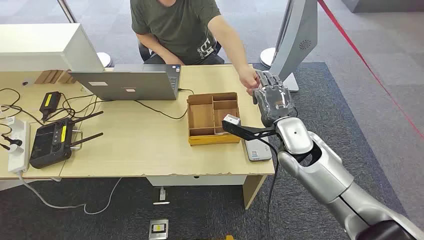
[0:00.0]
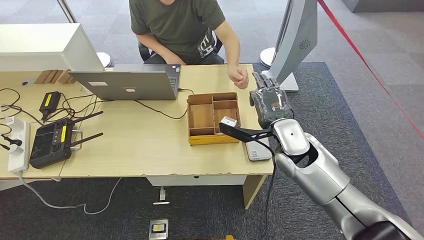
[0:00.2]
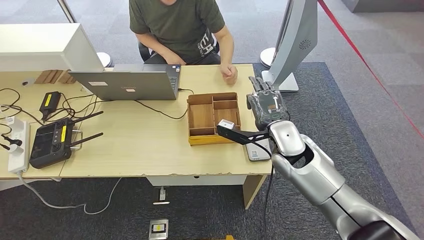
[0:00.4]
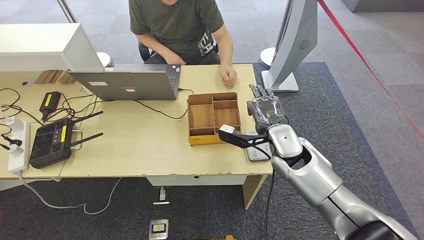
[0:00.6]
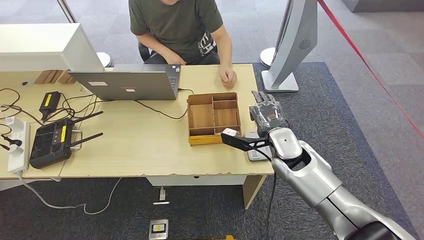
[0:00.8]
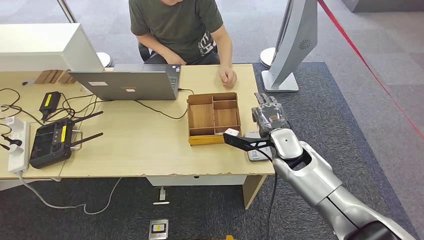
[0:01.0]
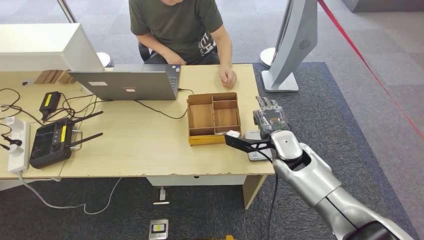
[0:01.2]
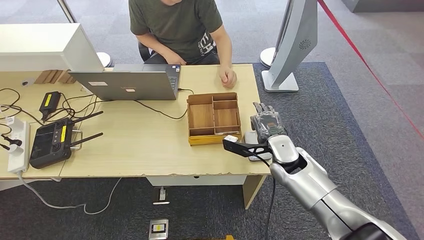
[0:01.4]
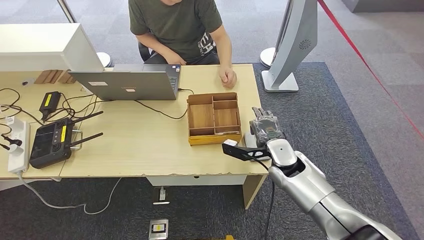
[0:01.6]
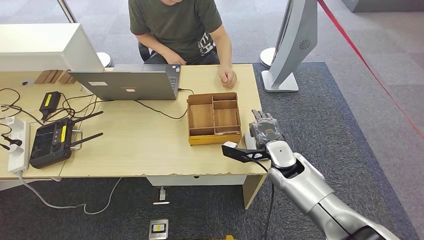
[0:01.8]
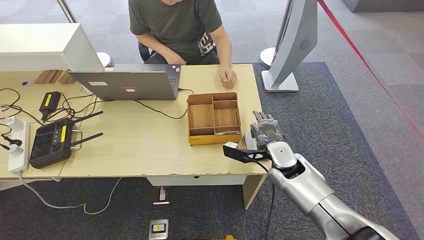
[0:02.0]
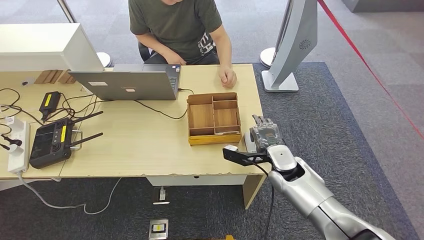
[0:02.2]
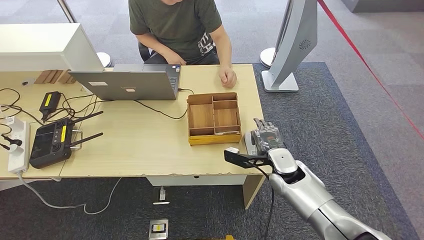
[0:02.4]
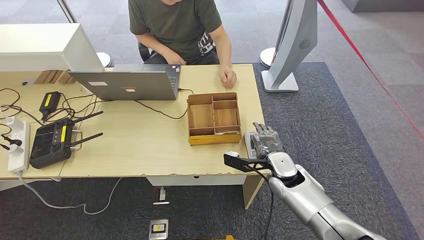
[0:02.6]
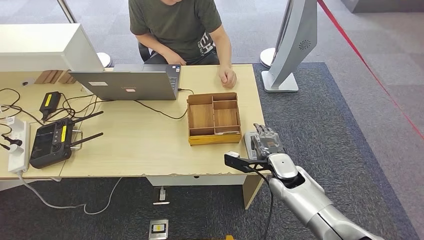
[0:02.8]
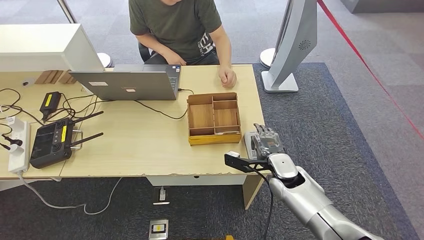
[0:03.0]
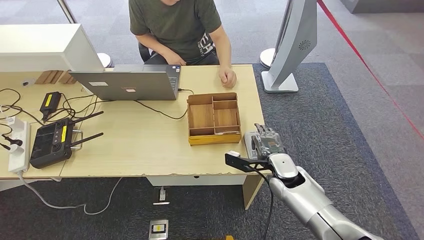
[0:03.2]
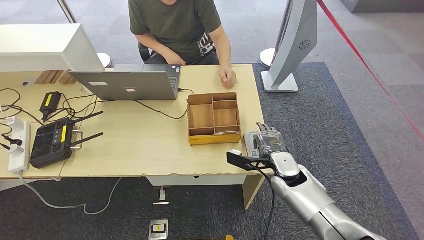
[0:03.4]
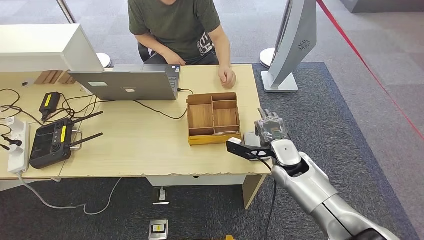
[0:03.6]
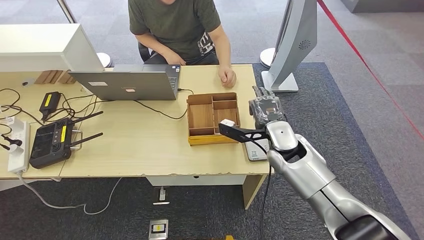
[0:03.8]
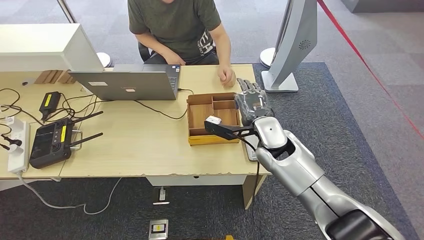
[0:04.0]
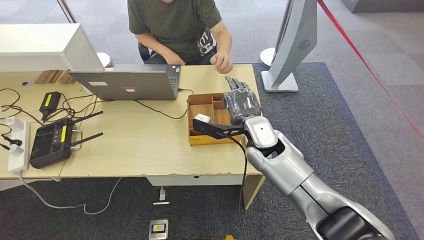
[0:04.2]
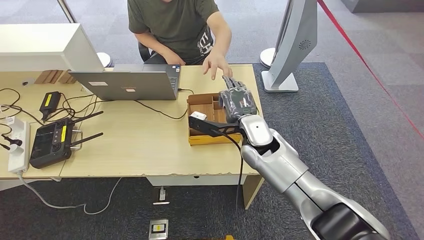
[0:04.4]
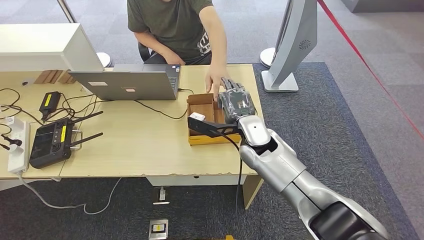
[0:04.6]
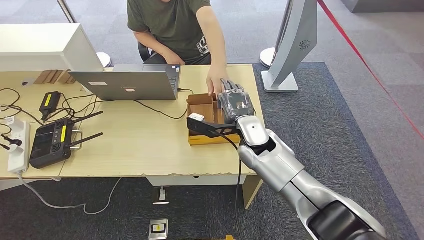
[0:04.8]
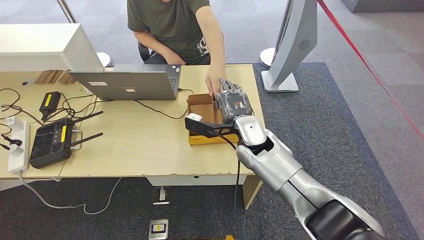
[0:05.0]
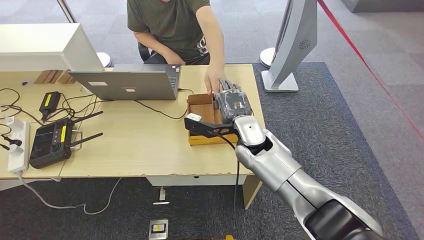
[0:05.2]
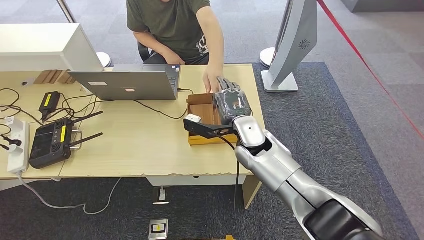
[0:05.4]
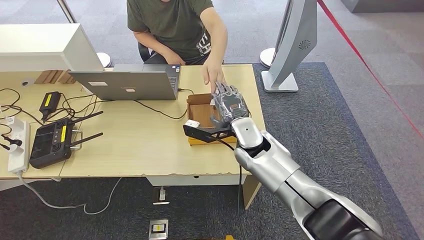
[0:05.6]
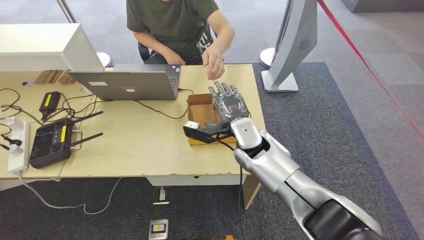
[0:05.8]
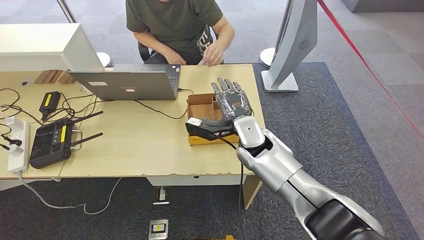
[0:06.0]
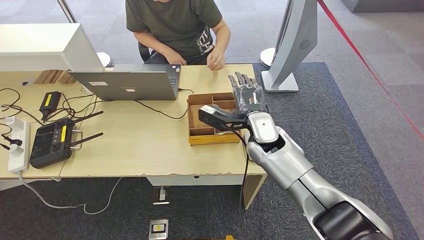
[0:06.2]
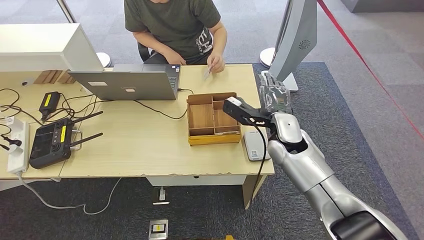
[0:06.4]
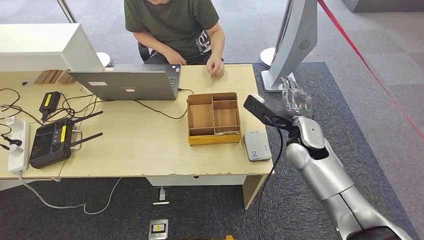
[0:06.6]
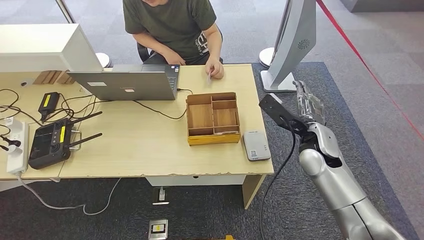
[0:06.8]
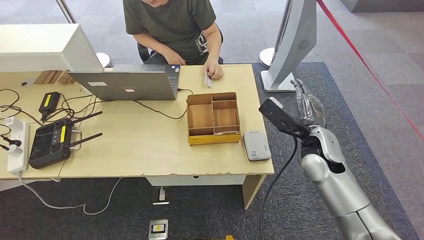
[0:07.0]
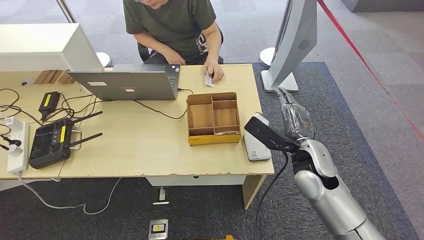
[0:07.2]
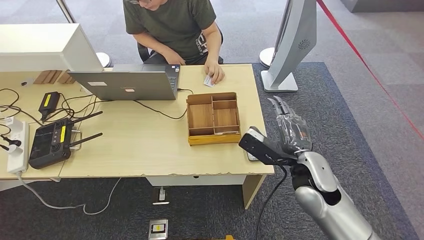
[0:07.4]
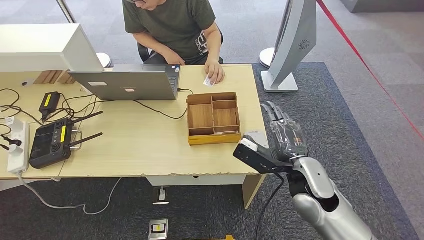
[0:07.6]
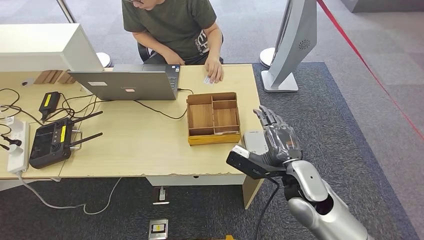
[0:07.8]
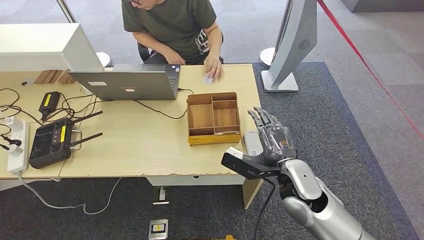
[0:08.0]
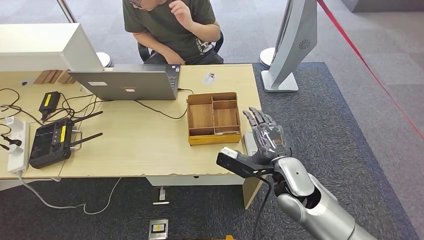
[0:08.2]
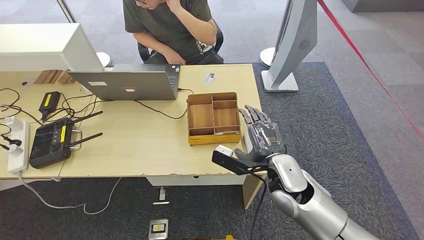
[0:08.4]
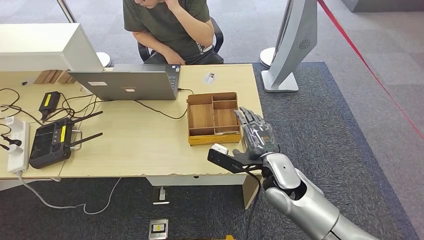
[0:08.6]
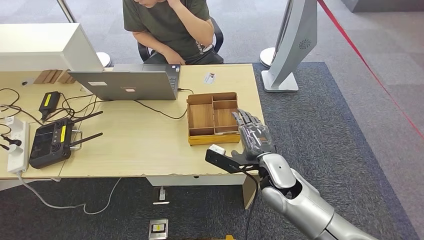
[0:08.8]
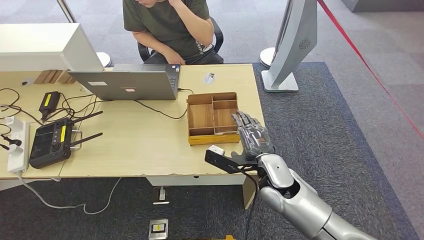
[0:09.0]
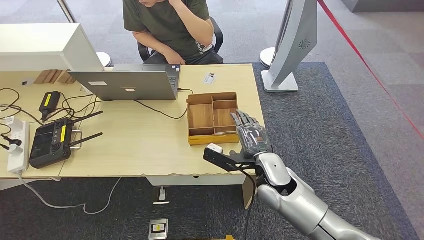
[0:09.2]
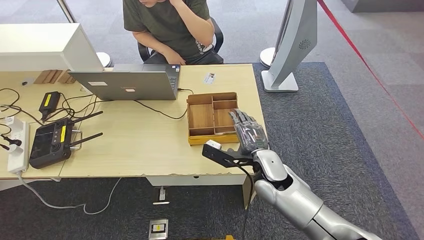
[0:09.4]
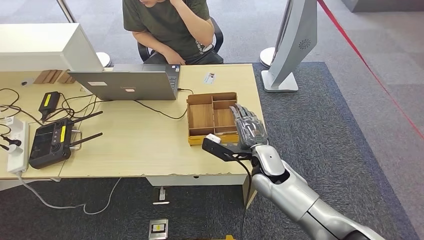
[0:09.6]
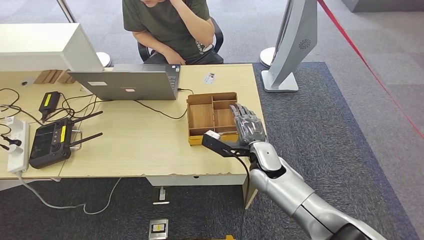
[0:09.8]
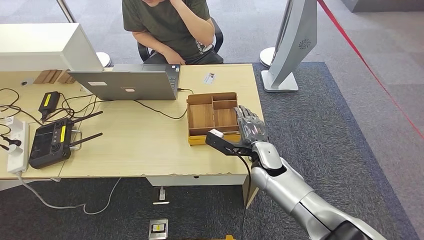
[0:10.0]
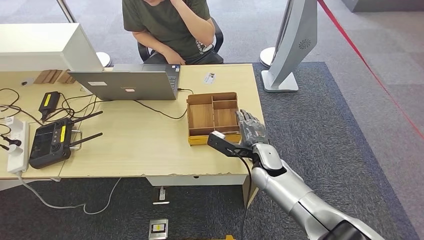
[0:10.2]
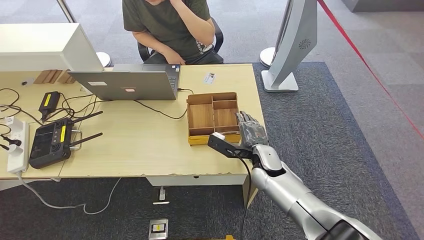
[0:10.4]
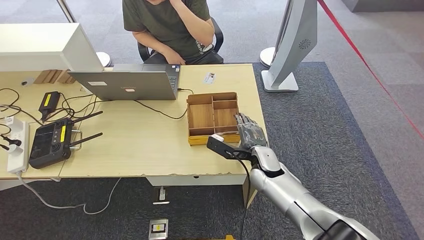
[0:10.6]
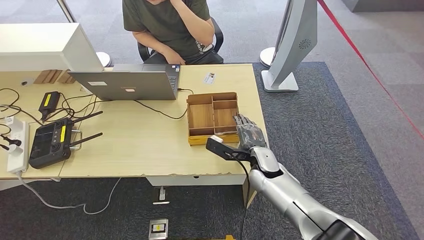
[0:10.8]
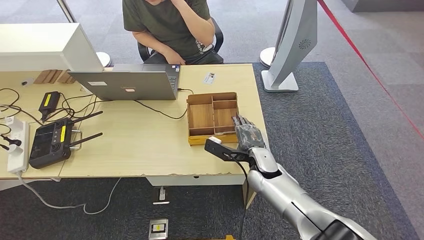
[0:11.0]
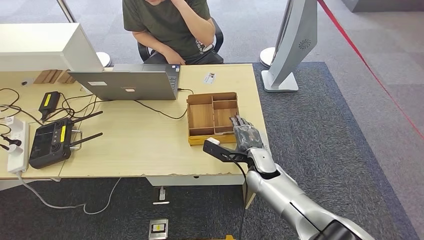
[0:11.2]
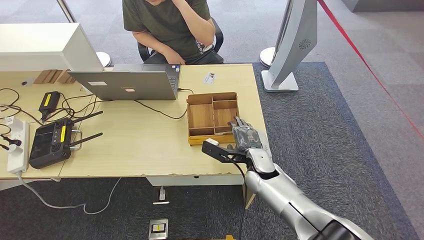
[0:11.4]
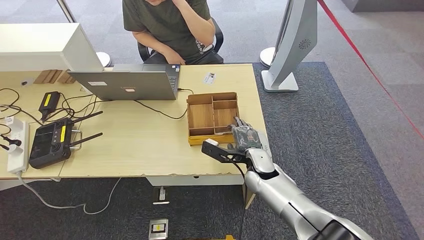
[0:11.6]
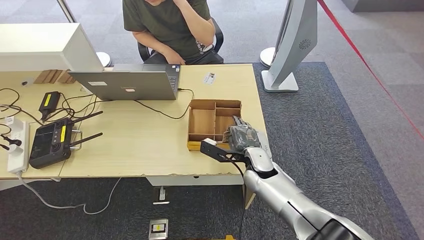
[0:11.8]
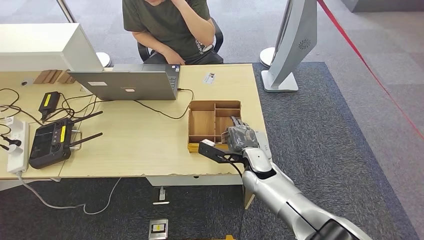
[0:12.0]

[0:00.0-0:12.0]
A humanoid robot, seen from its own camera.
Step, 0:00.0 to 0:01.0: Take the ID card from the person's hand.
Step, 0:01.2 to 0:04.4: Place the ID card on the card reader.
Step, 0:04.6 to 0:07.4: Hand the ID card to the person.
0:01.6 to 0:03.0: The hands stay close to where they were, moving slightly.
0:03.0 to 0:04.4: The right hand shifts roughly 15 cm upward, to the left and forward.
0:04.4 to 0:06.0: The hands move only a little.
0:06.0 to 0:07.6: The right hand moves backward and to the right, roughly 15 cm.
0:07.6 to 0:09.0: The right hand heads to the left, covering roughly 5 cm.
0:09.0 to 0:10.4: The right hand goes approximately 5 cm forward.
0:10.4 to 0:12.0: There are only small adjustments of the hands.

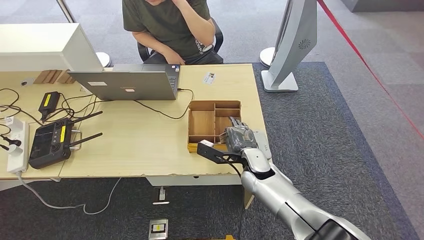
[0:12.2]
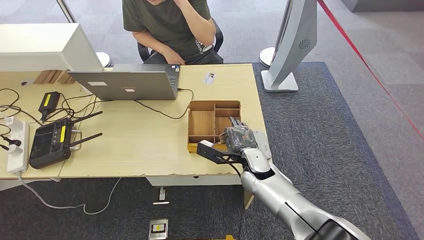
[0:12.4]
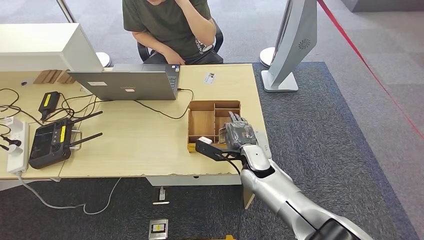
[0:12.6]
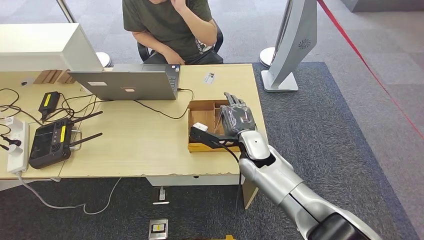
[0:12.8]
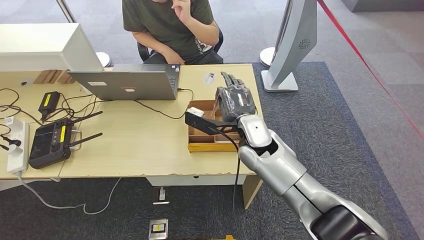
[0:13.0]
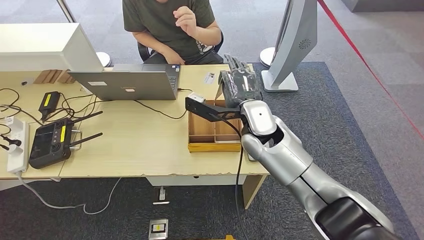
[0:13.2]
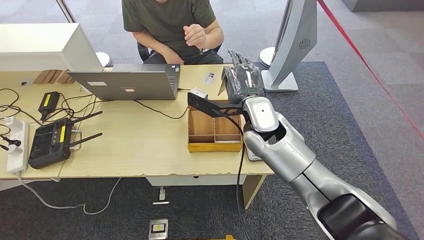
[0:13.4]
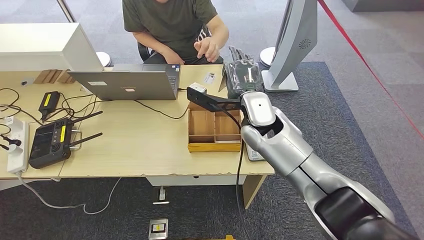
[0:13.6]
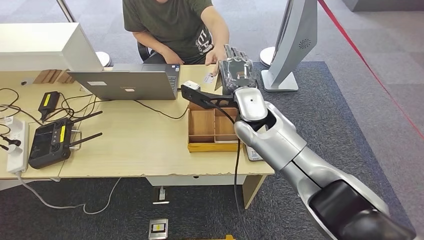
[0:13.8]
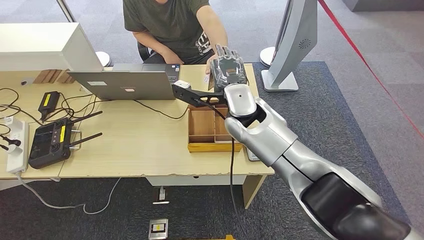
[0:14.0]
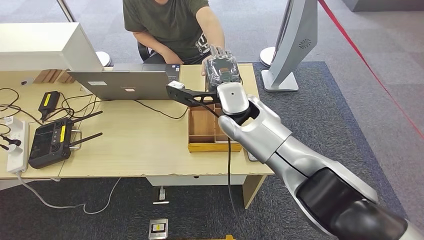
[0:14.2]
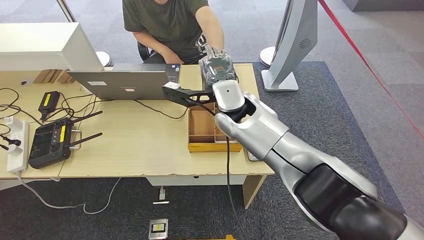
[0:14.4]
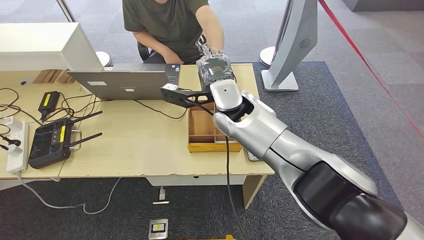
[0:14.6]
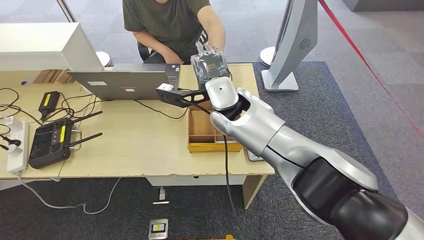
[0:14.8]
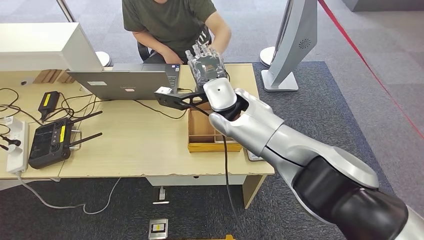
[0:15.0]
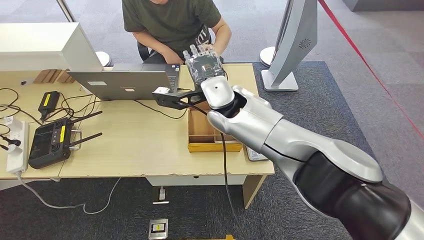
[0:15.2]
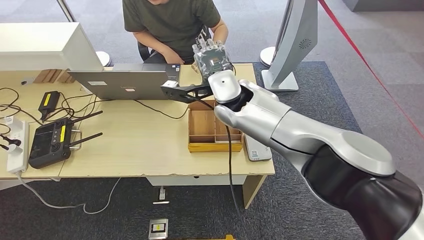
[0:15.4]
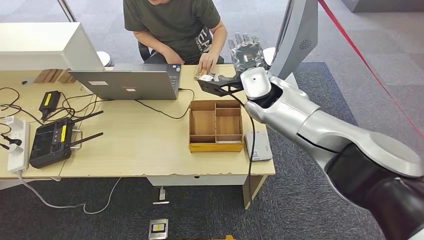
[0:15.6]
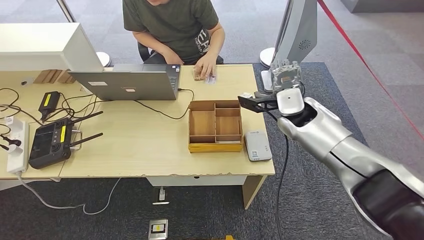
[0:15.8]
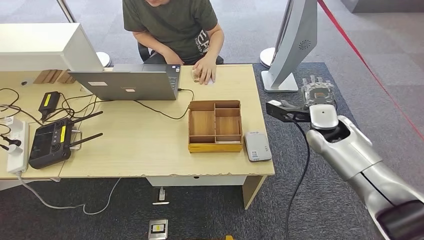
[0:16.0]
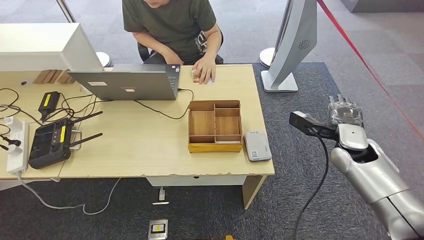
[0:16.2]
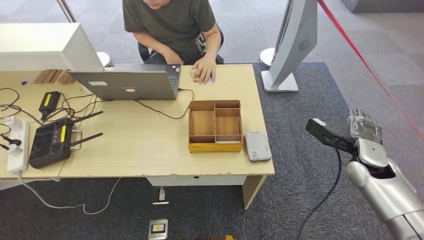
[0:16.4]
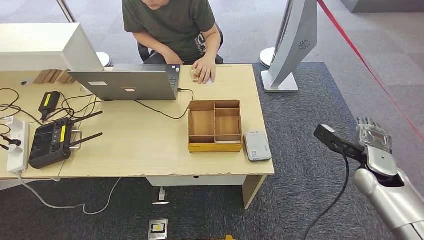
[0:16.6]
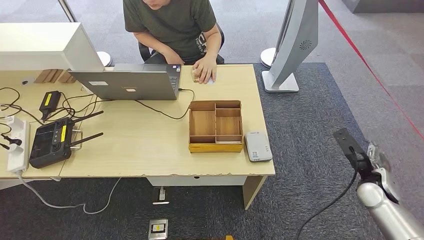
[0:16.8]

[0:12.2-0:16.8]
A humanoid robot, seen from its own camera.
Step, 0:13.2 to 0:16.8: Hand the room key to the person.
0:12.2 to 0:13.8: The right hand moves upward, roughly 20 cm.
0:13.8 to 0:15.2: The right hand heads to the left, covering approximately 5 cm.
0:15.2 to 0:16.8: The right hand goes approximately 40 cm to the right and downward.
